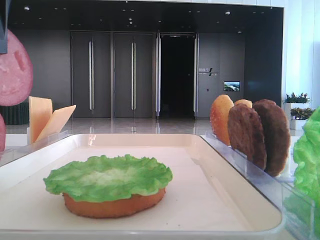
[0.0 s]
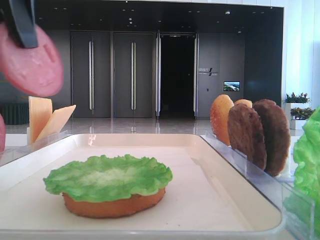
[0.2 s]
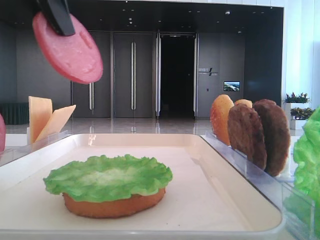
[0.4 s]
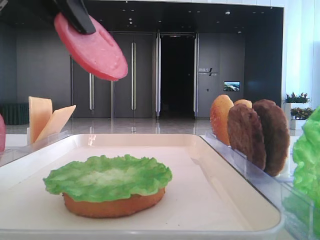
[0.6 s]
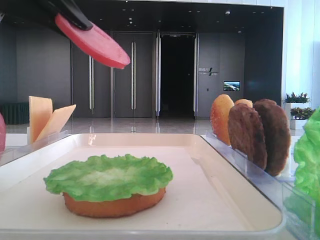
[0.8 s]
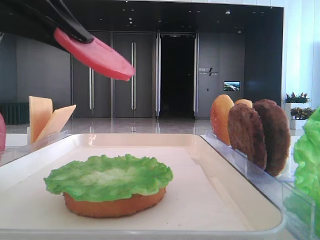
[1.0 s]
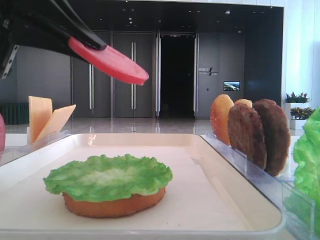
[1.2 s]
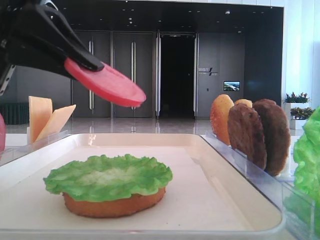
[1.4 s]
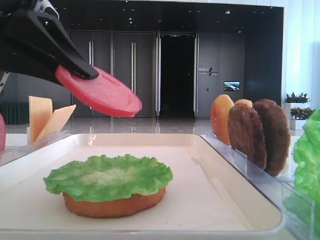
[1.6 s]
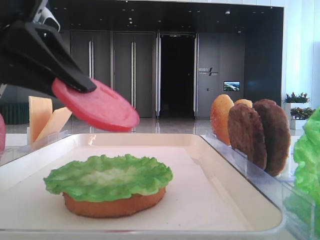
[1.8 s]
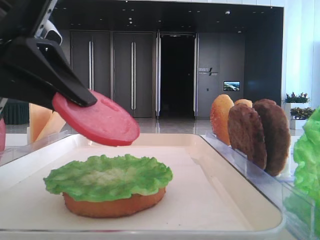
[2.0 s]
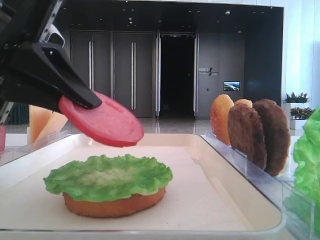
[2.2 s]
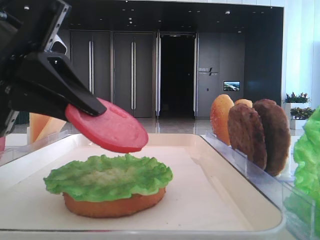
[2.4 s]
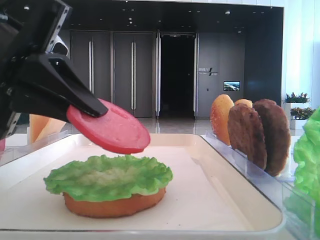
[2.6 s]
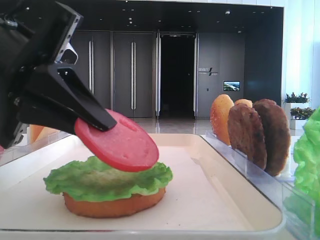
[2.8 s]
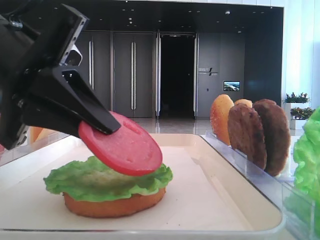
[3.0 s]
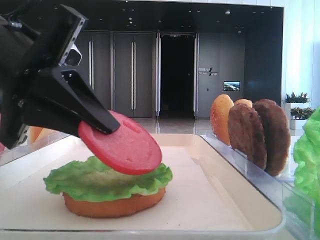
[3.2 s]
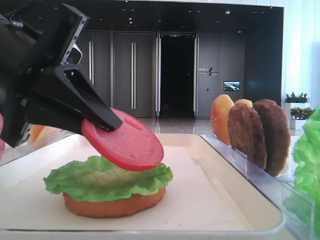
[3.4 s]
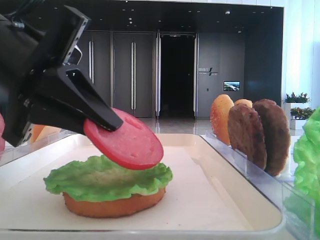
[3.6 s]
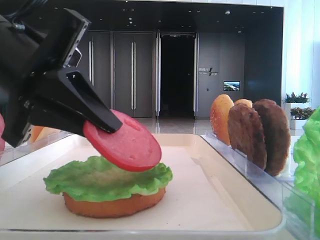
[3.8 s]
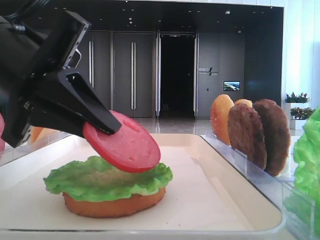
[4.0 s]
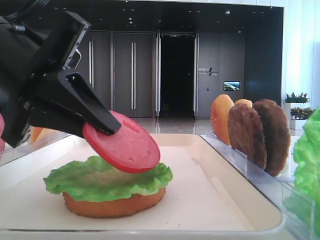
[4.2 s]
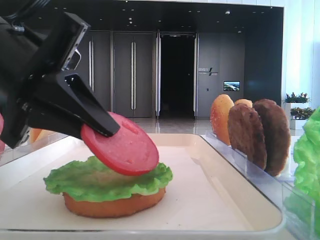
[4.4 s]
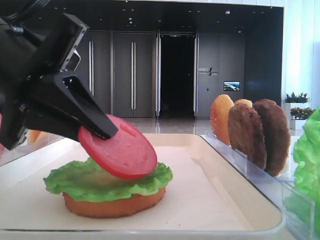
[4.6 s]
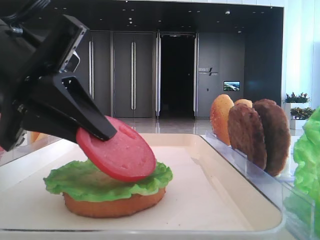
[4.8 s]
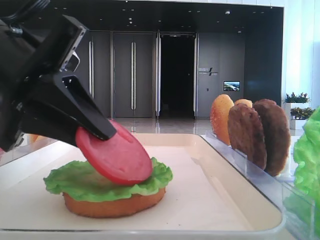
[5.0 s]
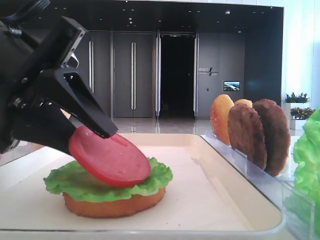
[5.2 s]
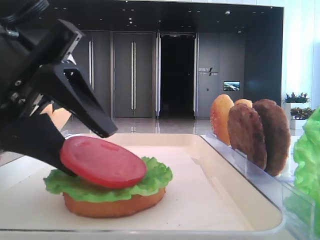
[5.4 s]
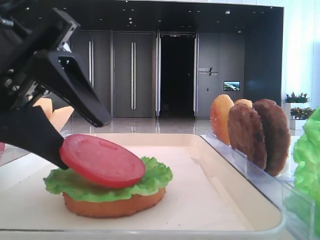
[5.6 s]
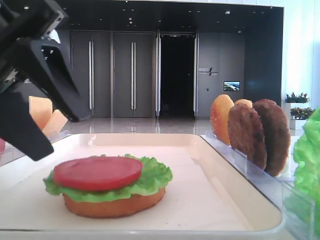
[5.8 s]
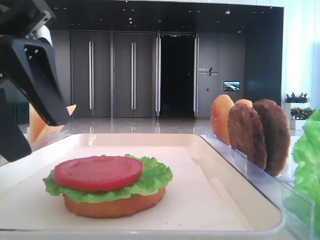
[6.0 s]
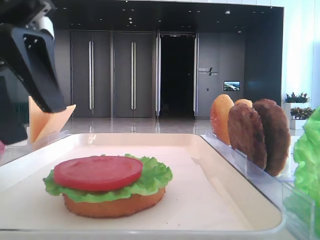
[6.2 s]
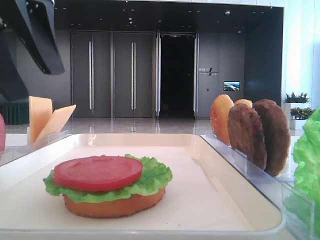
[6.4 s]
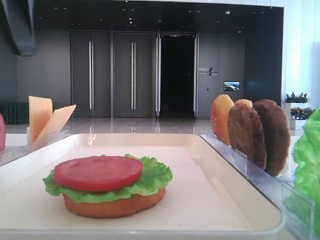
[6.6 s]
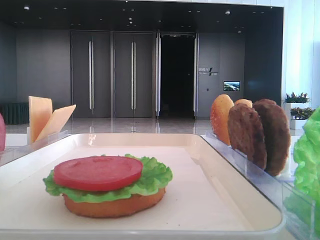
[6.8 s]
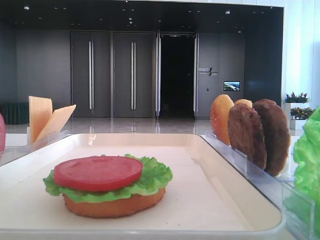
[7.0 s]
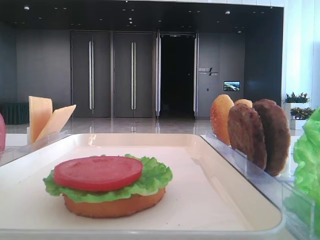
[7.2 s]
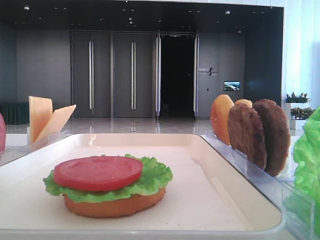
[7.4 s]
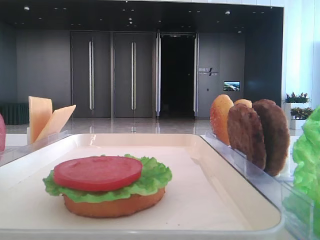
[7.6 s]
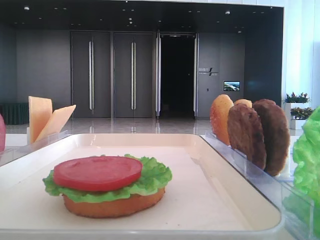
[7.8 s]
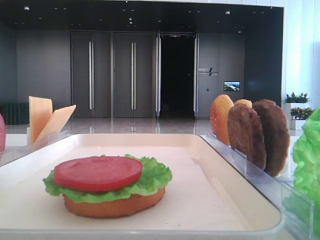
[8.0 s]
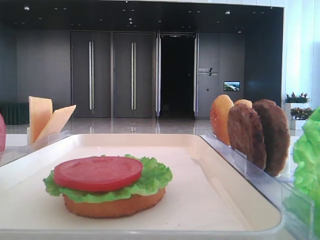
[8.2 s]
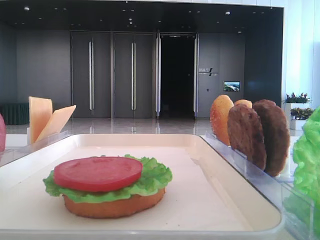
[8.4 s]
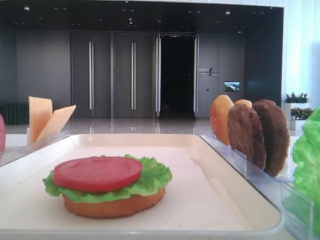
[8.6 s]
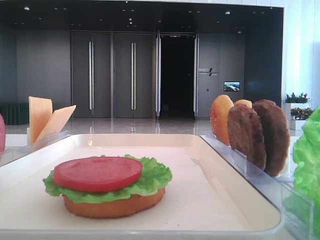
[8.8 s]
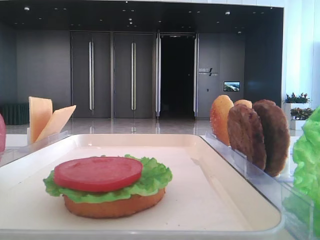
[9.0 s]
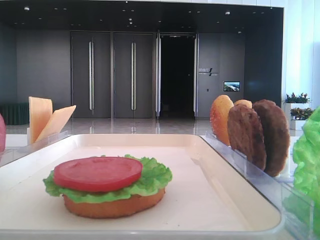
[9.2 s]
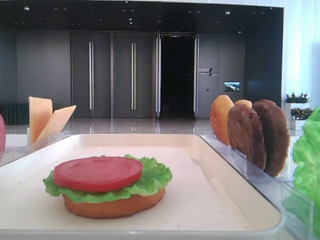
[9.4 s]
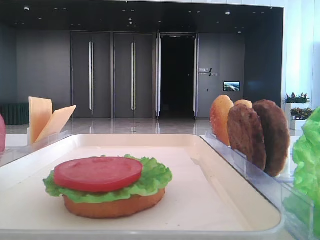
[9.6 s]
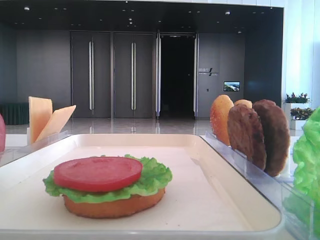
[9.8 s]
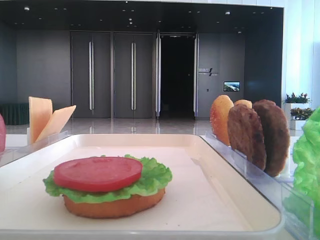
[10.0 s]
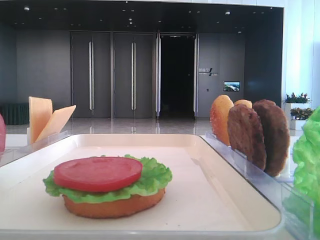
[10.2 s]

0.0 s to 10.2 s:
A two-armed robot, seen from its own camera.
Step, 0.0 to 5.6 s: Place the tomato slice on the lettuce leaf with the left hand.
0.0 to 1.4 s: The left gripper moves downward, roughly 10 cm.
1.4 to 3.0 s: The left gripper moves downward, roughly 5 cm.
3.0 to 4.4 s: Neither gripper changes place.
4.4 to 5.8 s: The left gripper opens.
5.8 to 7.2 s: The left gripper goes approximately 20 cm to the left and upward.

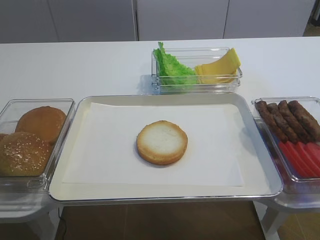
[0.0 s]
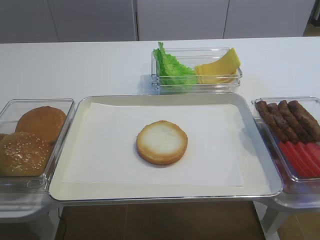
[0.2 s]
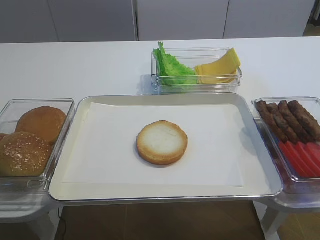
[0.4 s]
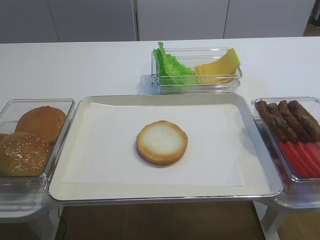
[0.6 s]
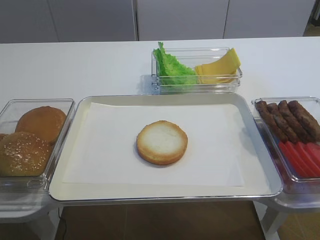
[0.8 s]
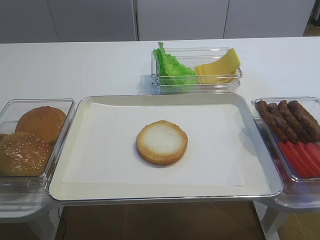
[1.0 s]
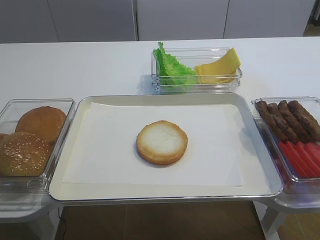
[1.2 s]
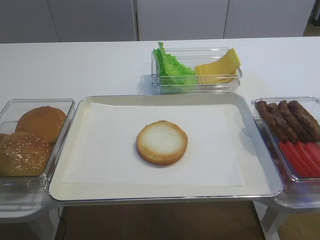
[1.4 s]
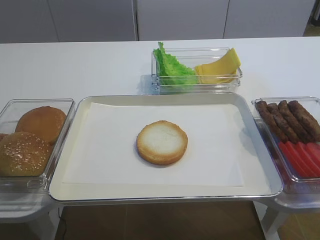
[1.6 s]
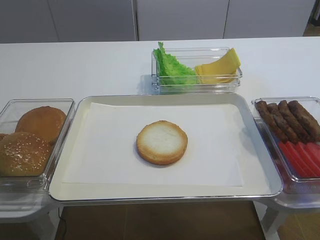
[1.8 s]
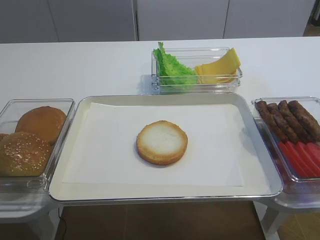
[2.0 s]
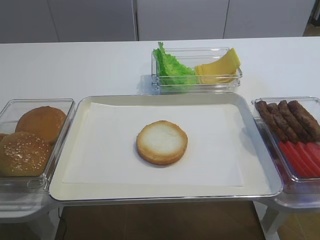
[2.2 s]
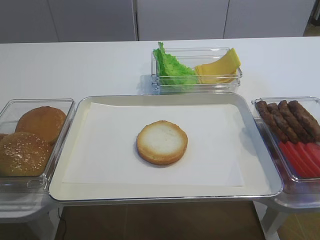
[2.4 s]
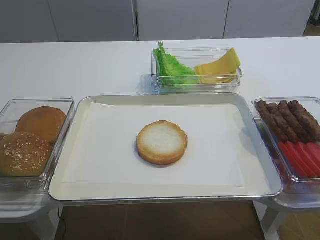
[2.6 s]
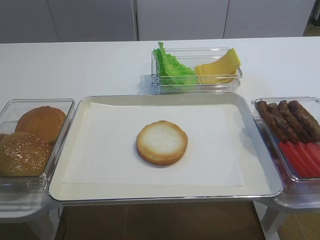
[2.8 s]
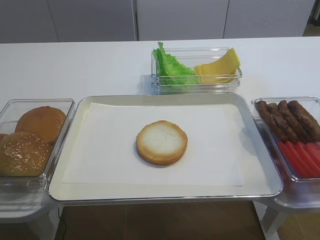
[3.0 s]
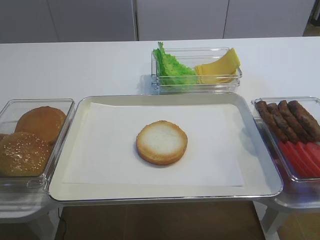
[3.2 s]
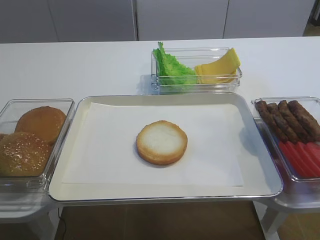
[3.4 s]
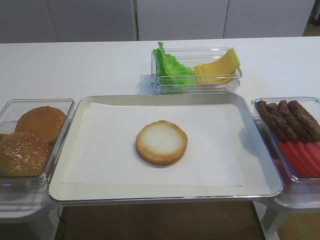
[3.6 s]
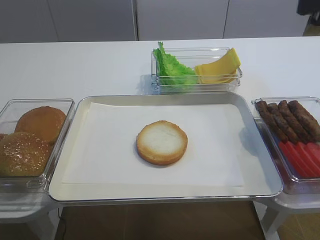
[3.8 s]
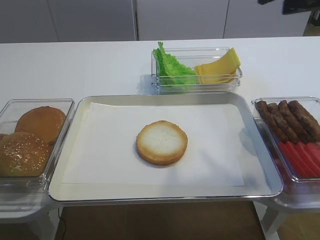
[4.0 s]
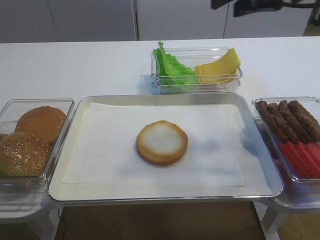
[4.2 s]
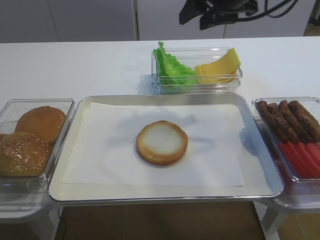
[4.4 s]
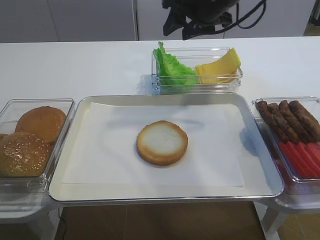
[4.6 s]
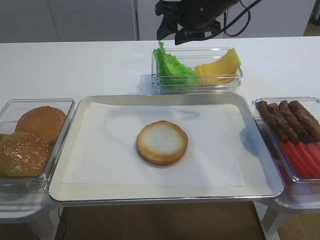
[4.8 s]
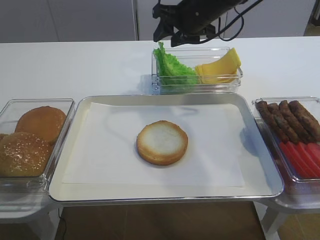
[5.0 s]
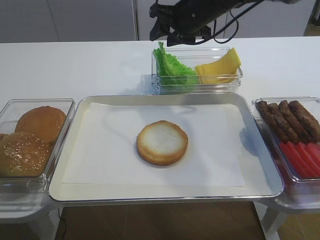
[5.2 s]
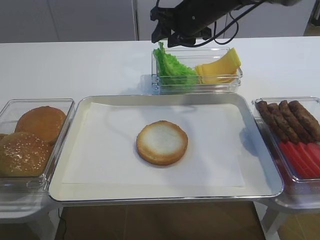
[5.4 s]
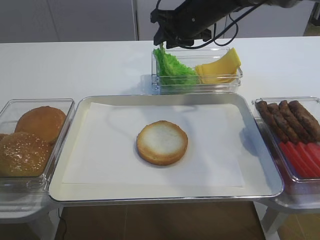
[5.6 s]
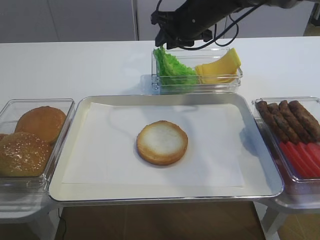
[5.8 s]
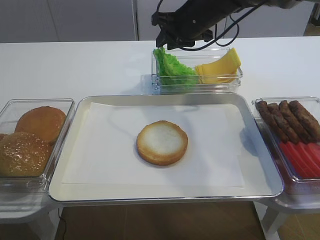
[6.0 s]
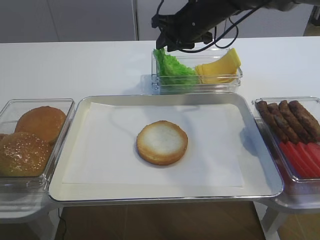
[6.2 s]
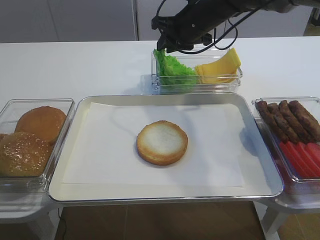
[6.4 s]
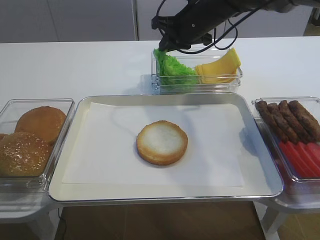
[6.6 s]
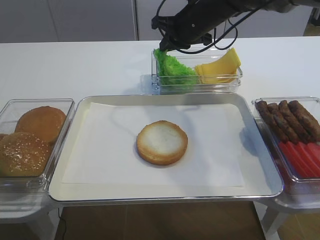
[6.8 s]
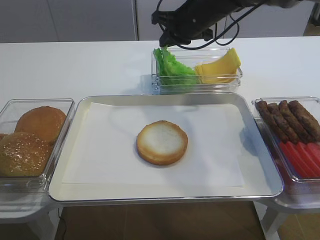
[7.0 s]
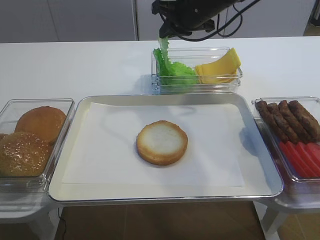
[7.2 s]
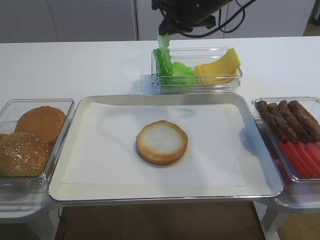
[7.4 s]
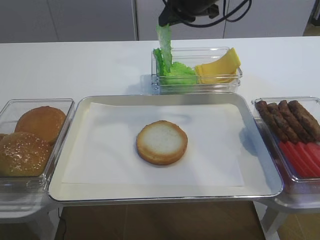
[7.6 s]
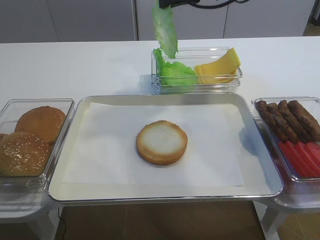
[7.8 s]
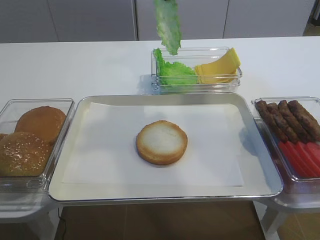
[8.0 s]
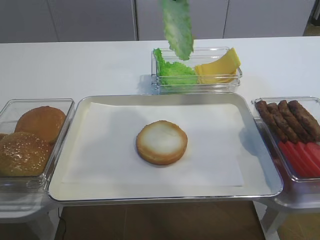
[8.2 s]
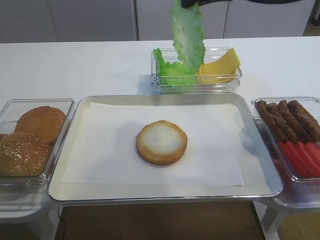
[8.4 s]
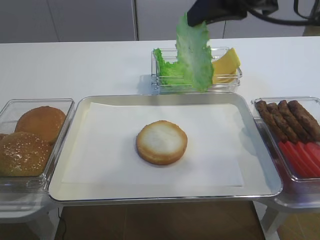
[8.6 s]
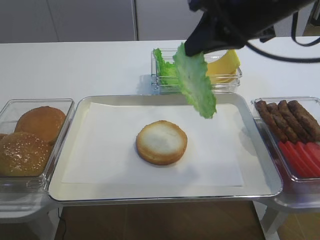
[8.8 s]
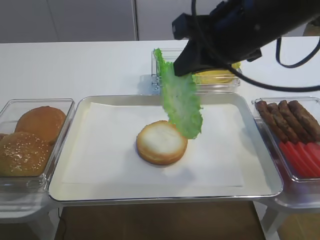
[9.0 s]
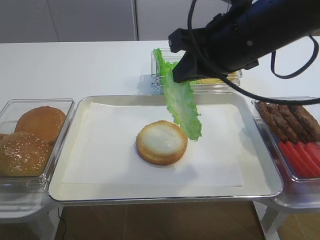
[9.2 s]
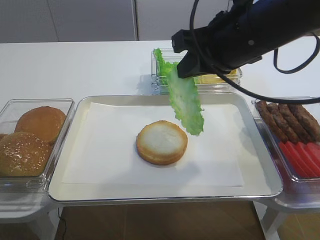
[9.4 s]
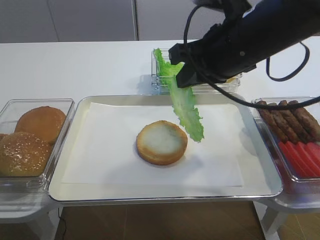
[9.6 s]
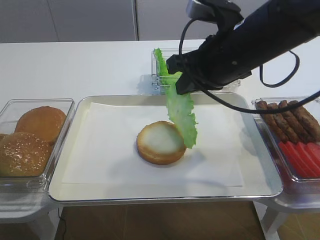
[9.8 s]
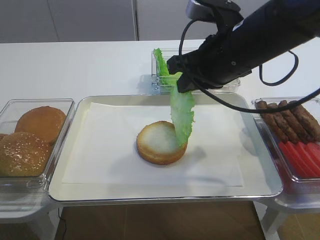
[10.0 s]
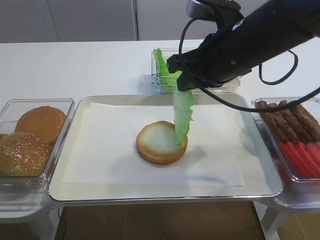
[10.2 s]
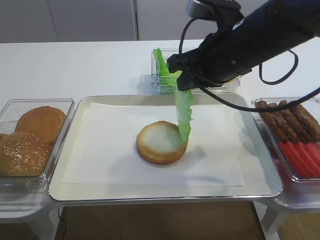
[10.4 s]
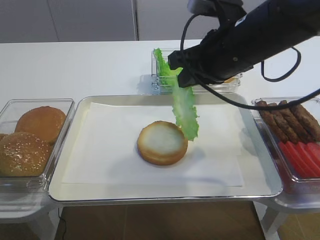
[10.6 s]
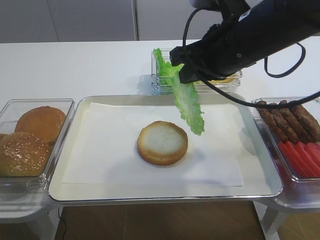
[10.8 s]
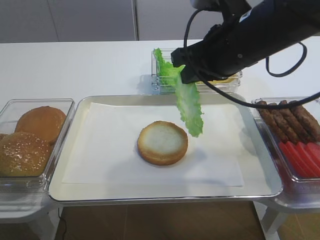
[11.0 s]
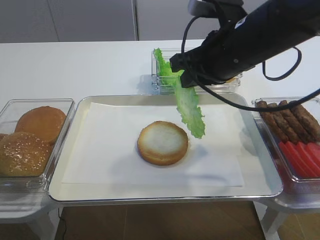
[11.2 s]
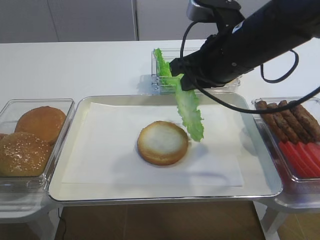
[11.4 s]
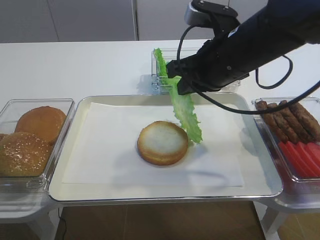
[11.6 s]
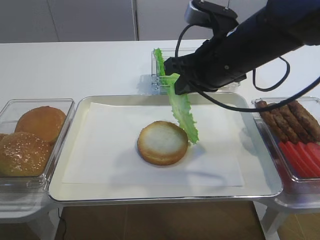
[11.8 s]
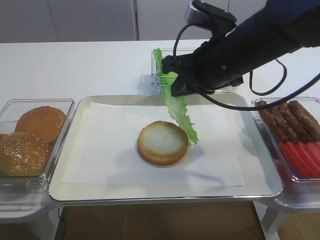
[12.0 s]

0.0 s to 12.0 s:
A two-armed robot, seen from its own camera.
Step, 0.0 to 7.4 s: Pick up the lettuce leaf with the right gripper.
3.0 to 4.4 s: The right gripper heads forward, covering some 40 cm.
4.4 to 6.0 s: The right gripper is displaced forward and downward by some 10 cm, and closes up.
6.0 to 7.6 s: The right gripper is displaced upward by some 5 cm, and closes up.
7.6 to 9.0 s: The right gripper moves backward, roughly 20 cm.
9.0 to 10.4 s: The right gripper shifts by about 5 cm.
10.4 to 12.0 s: The grippers make only small movements.
